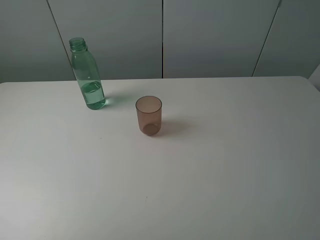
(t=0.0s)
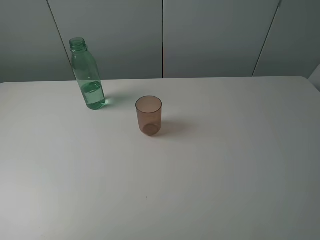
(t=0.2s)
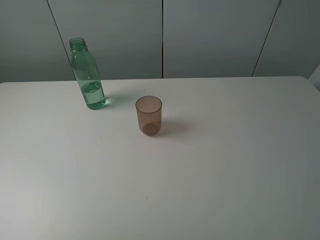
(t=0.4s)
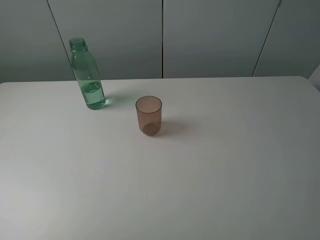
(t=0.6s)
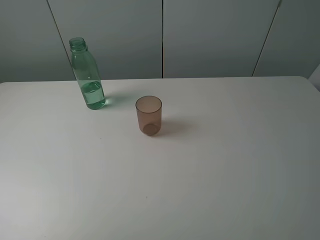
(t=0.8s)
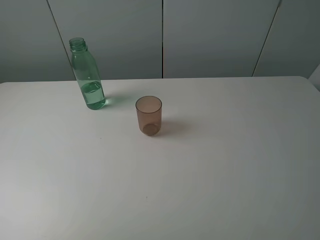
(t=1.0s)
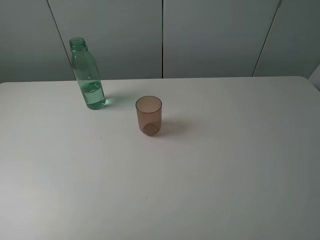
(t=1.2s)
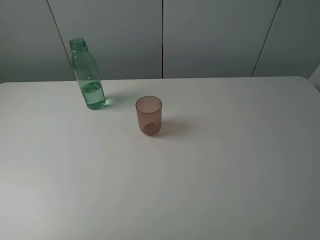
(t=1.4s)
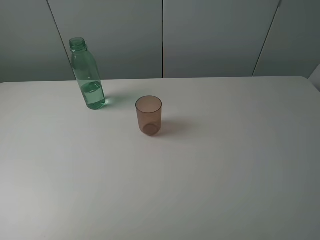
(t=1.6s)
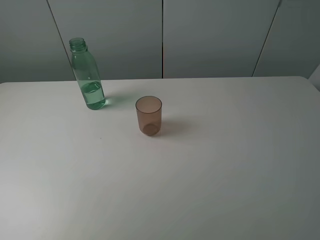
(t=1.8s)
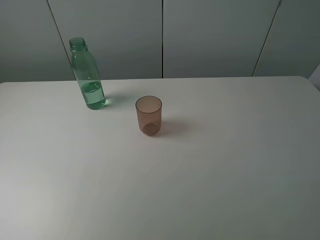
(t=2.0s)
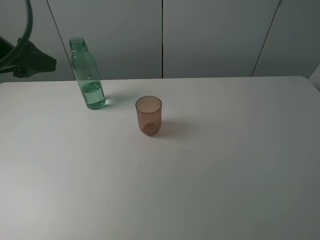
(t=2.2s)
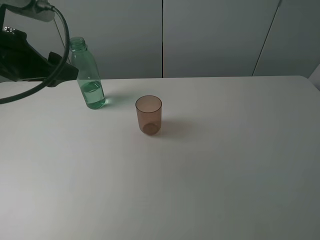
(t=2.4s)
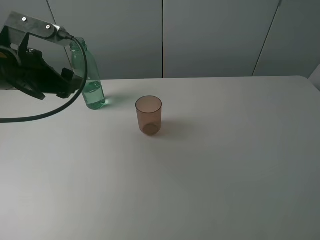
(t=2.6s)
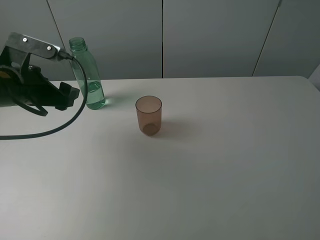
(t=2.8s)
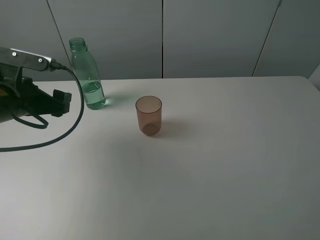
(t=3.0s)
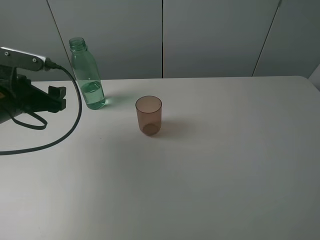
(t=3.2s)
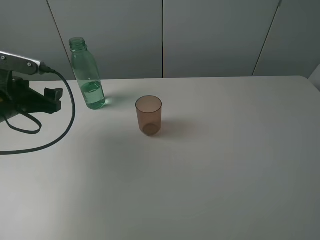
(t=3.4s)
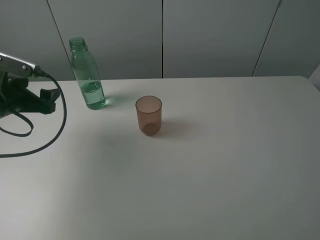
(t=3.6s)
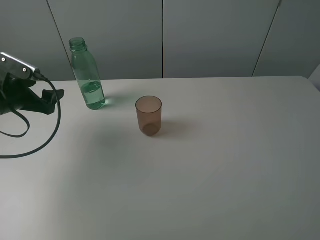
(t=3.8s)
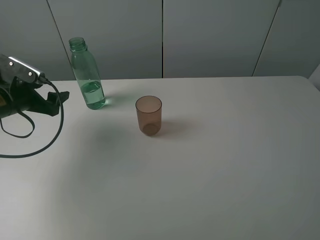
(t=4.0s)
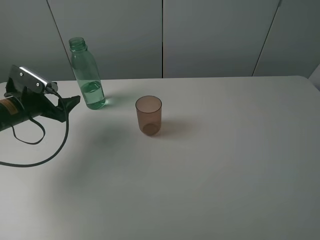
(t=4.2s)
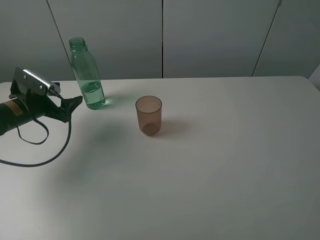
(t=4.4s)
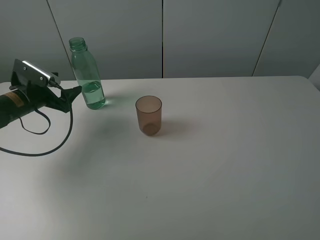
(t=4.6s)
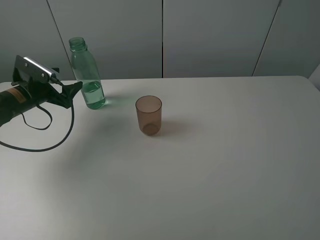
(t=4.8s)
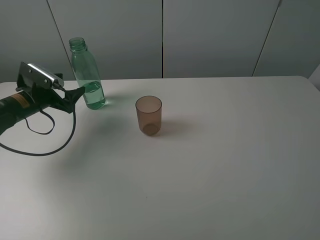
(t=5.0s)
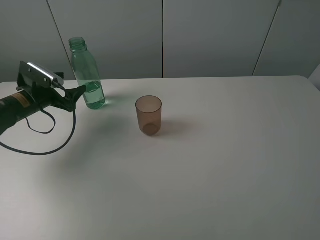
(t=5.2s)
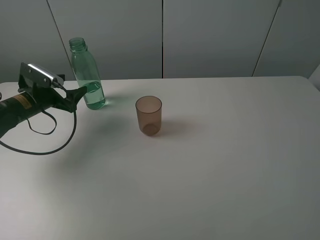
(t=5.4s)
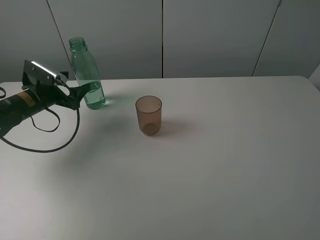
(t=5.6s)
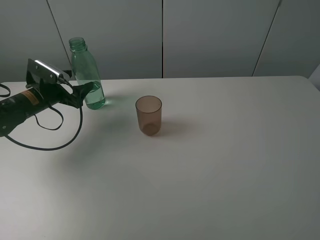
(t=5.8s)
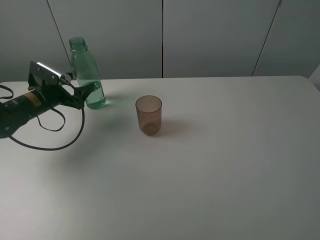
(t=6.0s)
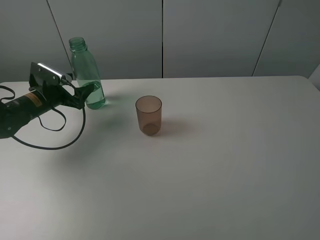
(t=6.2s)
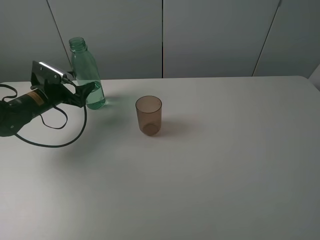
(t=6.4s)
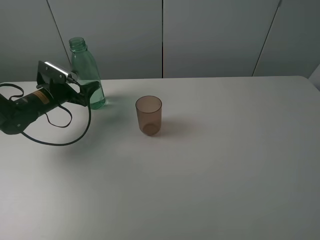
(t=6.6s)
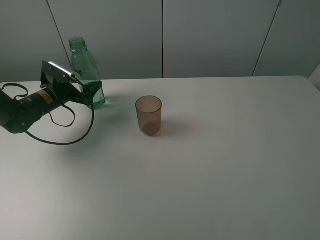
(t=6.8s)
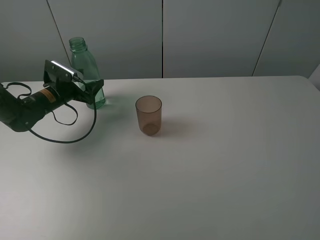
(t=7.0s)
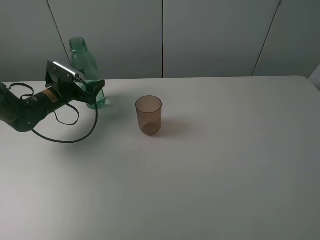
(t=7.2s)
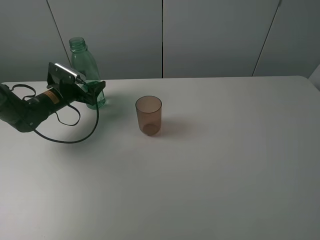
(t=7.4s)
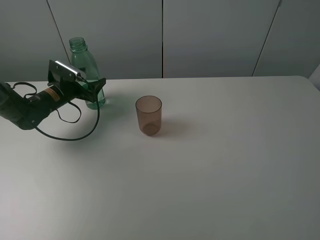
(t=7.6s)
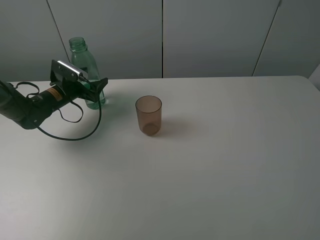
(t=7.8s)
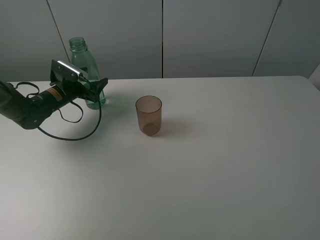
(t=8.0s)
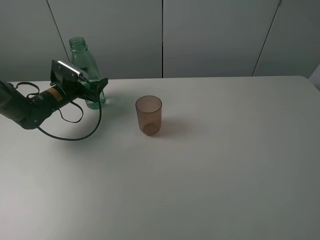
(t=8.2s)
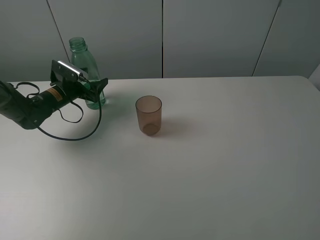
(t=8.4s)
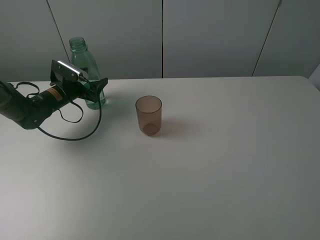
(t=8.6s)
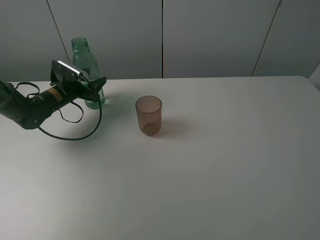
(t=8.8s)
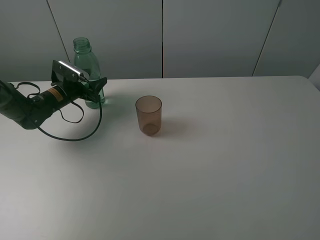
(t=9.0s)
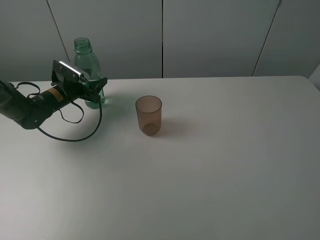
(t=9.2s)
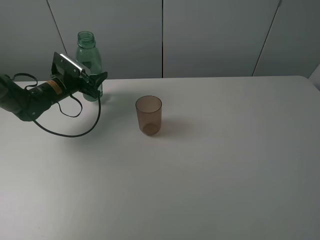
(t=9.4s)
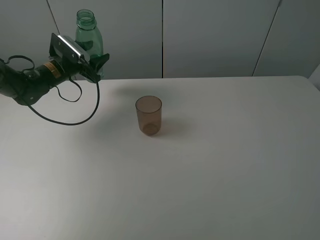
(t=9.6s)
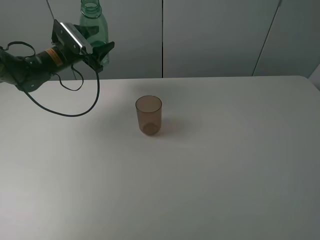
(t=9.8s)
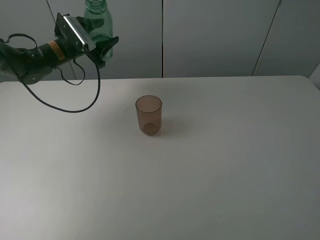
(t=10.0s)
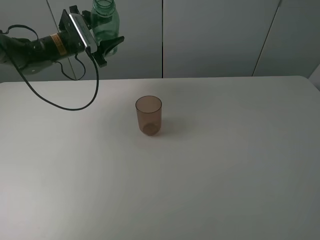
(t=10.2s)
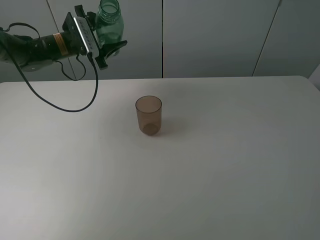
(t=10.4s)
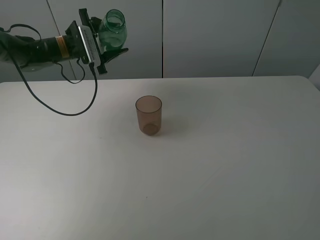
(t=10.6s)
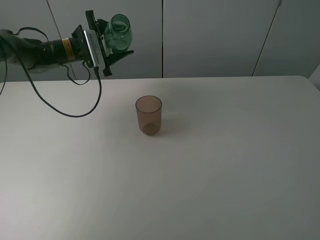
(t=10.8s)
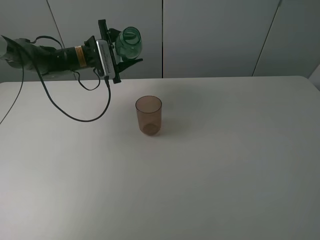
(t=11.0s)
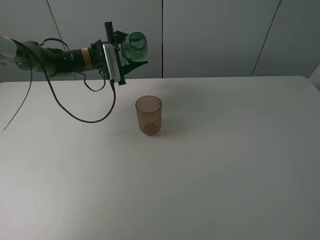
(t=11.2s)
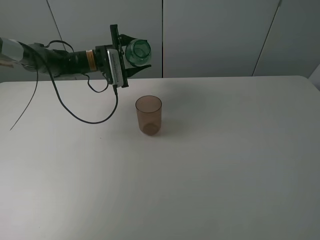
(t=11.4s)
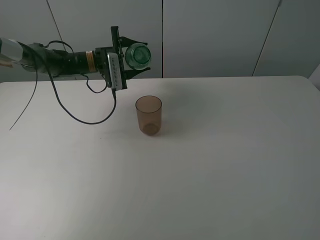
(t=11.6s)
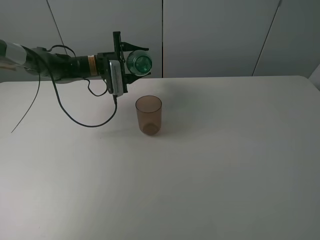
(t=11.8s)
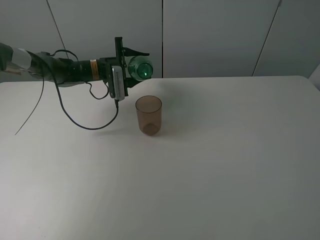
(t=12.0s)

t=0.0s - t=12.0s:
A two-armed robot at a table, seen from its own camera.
Task of the whole recording: pick up the bottle filled with water and pour it into the pink cup.
Step, t=0.0s - t=9.2s: Grasp the green bottle with the left gripper.
t=1.6s - t=3.0s: The left gripper moves forward and downward, about 25 cm.
t=3.0s - t=4.4s: The left gripper heads downward and forward, covering about 10 cm.
t=4.4s - t=6.0s: The grippers stay close to where they were, moving slightly.
t=6.0s - t=7.6s: The left gripper moves forward, approximately 5 cm.
t=7.6s - t=9.0s: The left gripper closes up.
t=9.0s - t=10.4s: The left gripper goes roughly 10 cm upward.
t=10.4s - t=12.0s: The left gripper travels downward and to the right by roughly 10 cm.

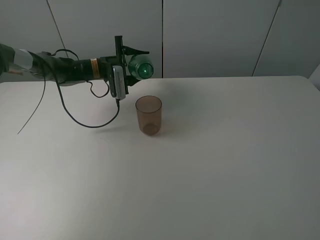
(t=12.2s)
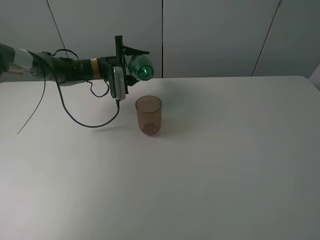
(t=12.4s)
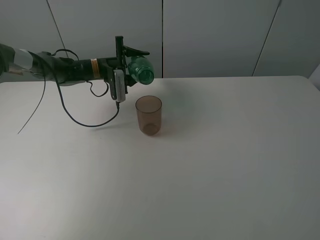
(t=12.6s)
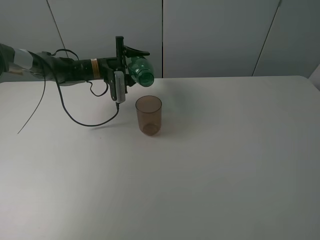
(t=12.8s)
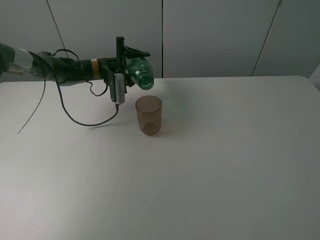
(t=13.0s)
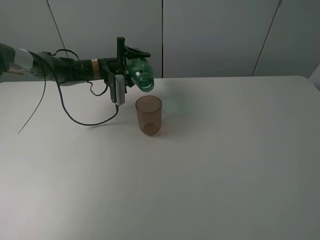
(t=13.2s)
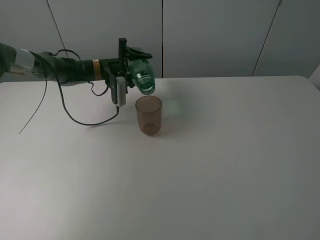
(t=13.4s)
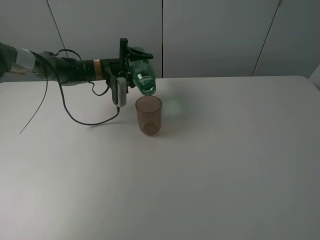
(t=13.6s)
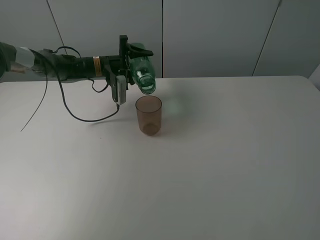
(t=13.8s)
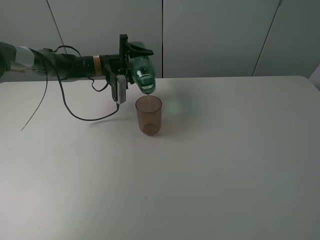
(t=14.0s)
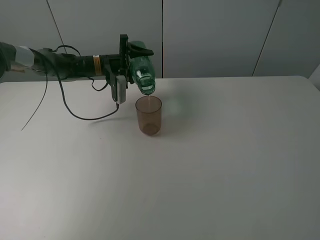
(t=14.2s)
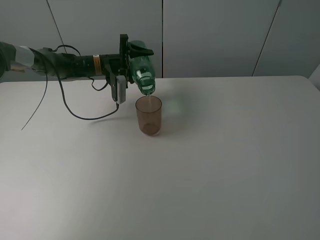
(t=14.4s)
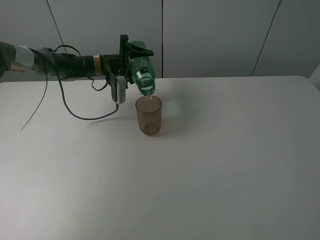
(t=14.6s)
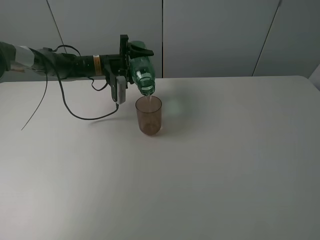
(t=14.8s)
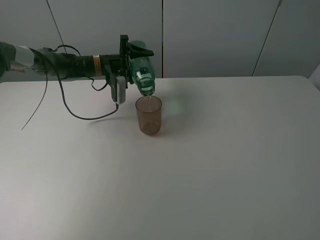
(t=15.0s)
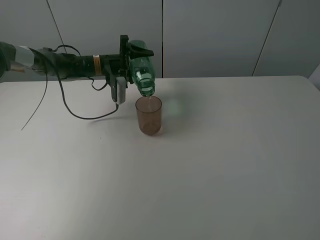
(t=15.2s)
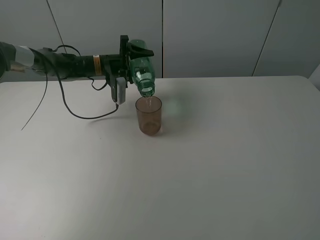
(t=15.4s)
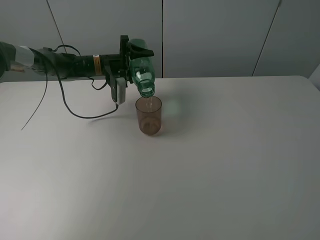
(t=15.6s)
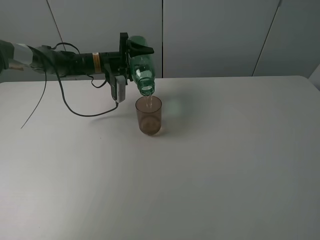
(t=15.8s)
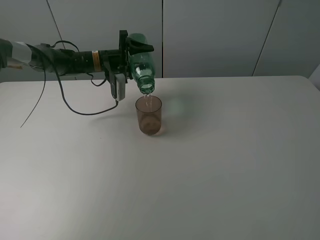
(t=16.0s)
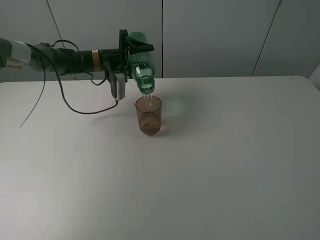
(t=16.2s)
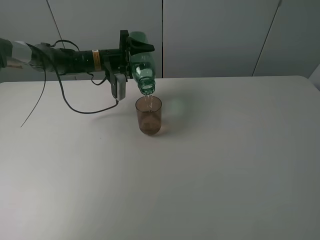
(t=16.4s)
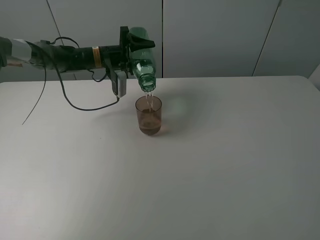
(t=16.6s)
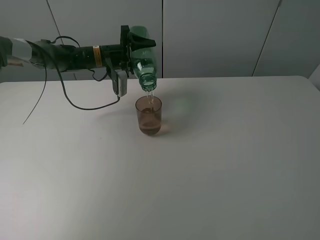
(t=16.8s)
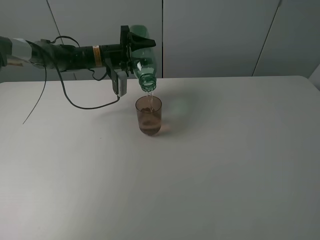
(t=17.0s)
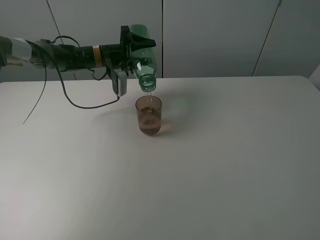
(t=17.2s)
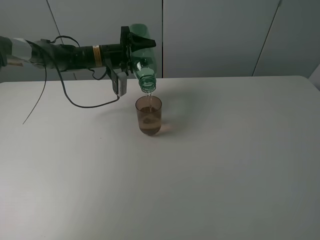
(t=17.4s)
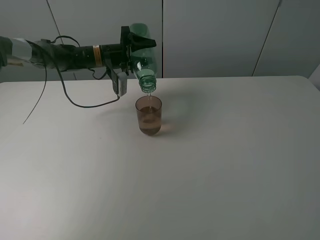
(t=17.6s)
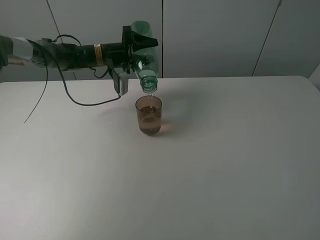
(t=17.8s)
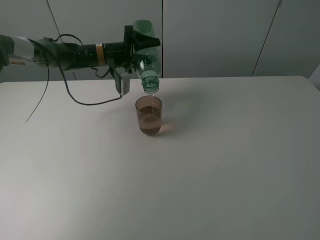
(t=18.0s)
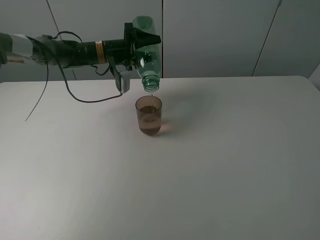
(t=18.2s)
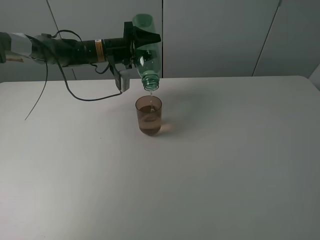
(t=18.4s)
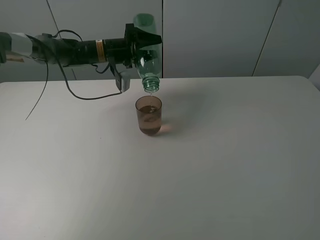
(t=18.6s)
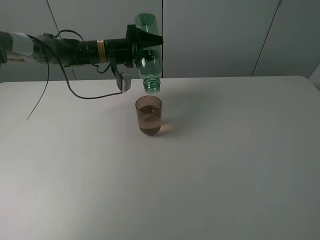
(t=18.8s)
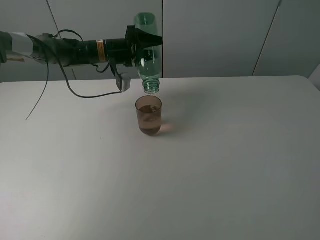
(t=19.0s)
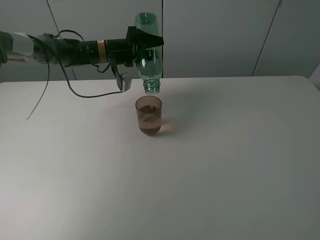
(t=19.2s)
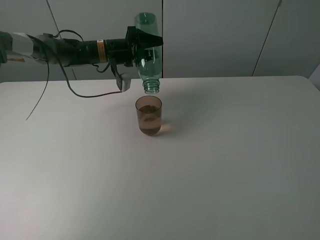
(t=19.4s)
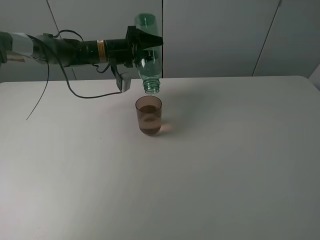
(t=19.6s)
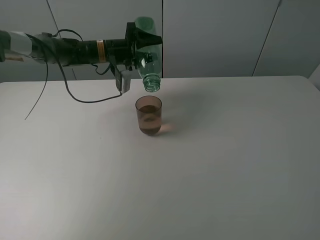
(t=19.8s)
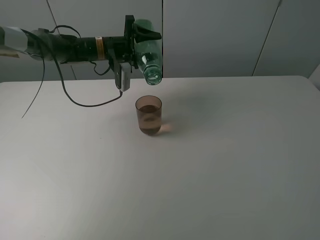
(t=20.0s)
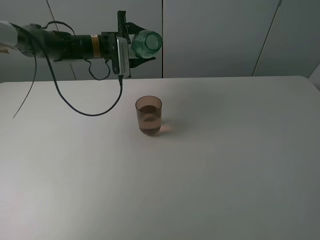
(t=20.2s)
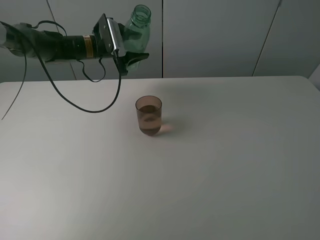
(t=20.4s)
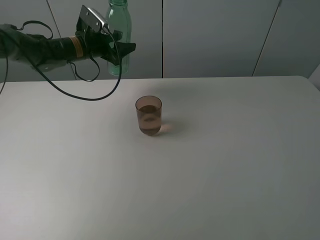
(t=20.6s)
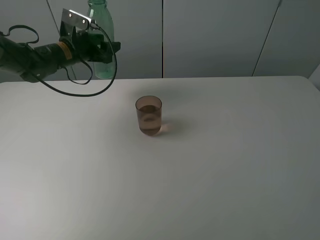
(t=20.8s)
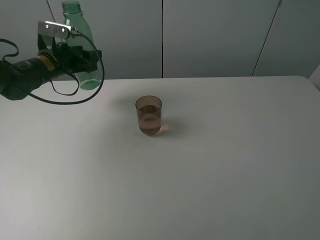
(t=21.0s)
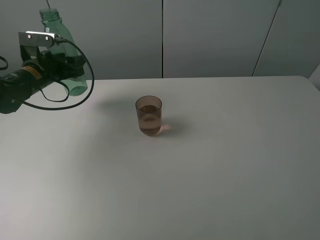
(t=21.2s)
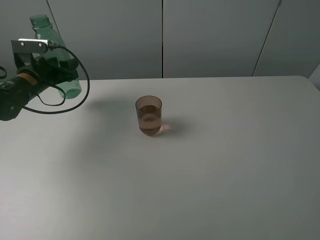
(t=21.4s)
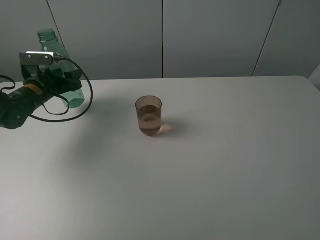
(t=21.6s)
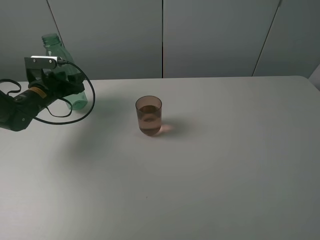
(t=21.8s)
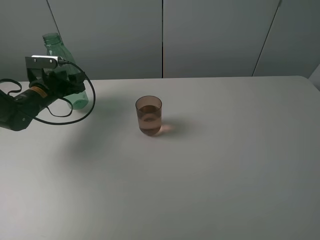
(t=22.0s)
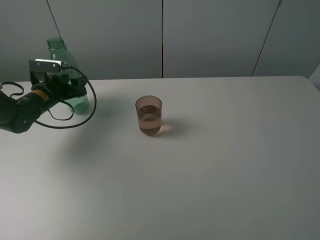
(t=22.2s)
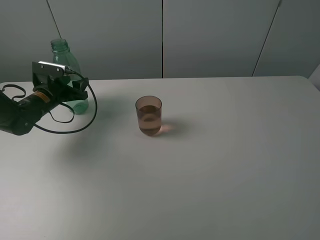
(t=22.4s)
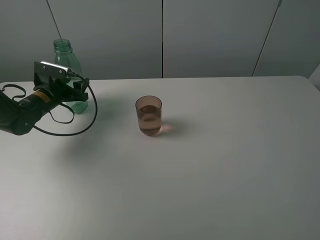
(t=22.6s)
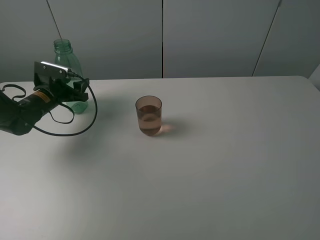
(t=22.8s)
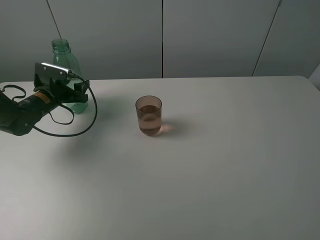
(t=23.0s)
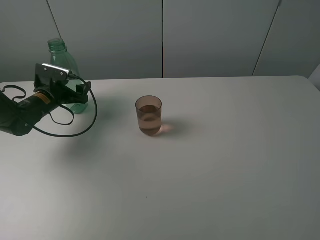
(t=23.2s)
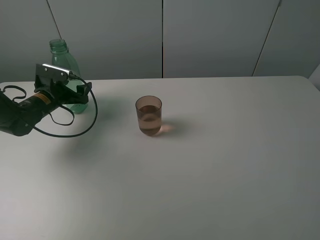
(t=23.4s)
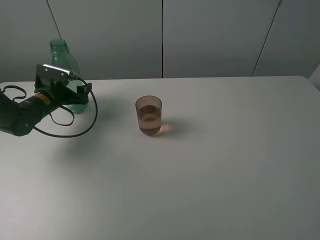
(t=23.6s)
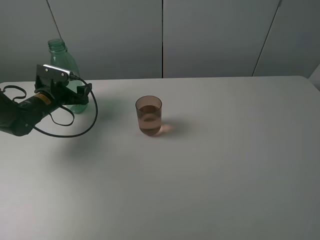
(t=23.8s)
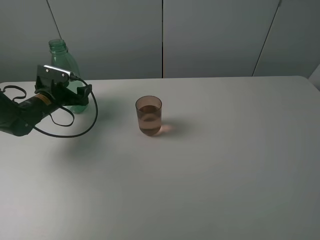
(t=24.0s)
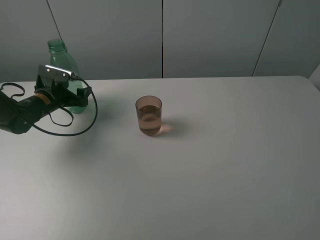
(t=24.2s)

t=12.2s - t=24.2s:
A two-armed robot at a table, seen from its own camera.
Task of the whole recording: pick up the bottle filled with water and pour it into the pink cup.
Step, t=12.2s - t=18.8s: Pour water from green bottle to pink cup with the left gripper.
t=13.8s - t=15.2s: Both grippers stay about where they are.
t=15.2s - t=16.6s: The grippers move only a little.
t=16.6s - t=18.2s: The grippers make only small movements.
t=18.2s - t=19.8s: The grippers stay close to where they were, moving slightly.
t=19.8s - t=21.2s: The left gripper is displaced to the left and backward by approximately 20 cm.
t=21.2s - t=22.6s: The left gripper goes some 5 cm downward.
t=22.6s - t=24.2s: The left gripper opens.
